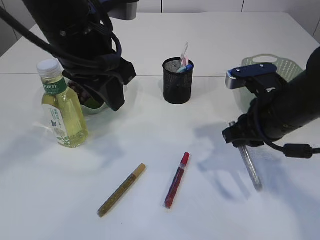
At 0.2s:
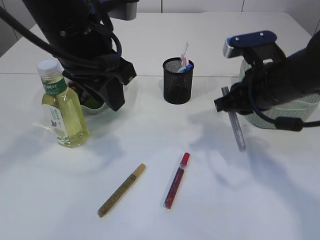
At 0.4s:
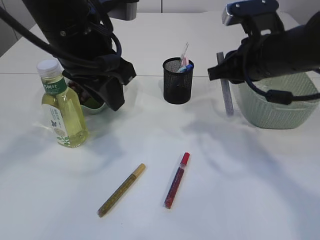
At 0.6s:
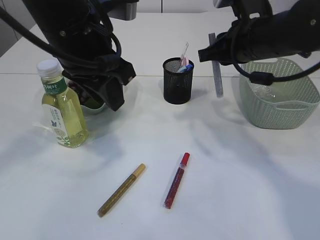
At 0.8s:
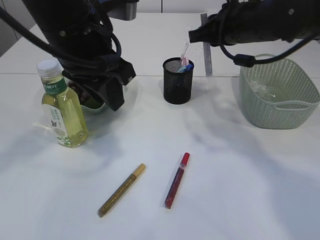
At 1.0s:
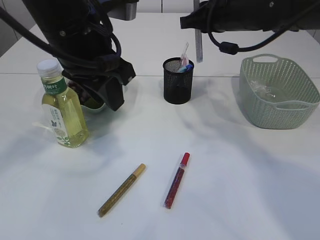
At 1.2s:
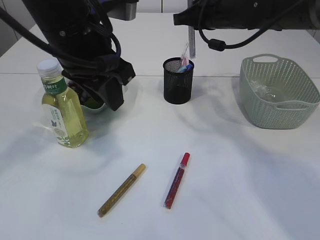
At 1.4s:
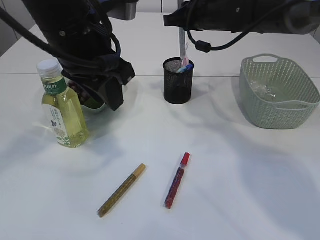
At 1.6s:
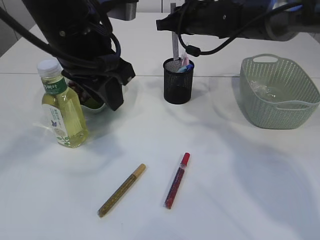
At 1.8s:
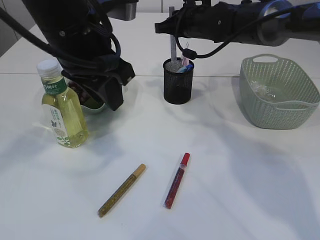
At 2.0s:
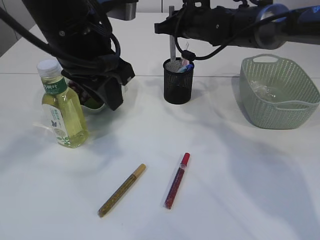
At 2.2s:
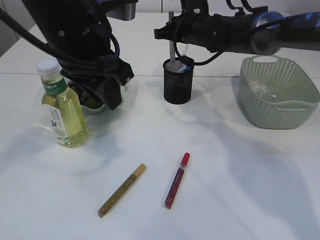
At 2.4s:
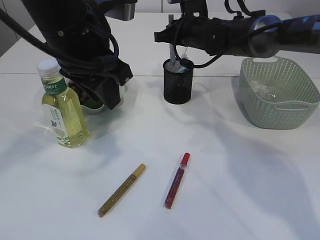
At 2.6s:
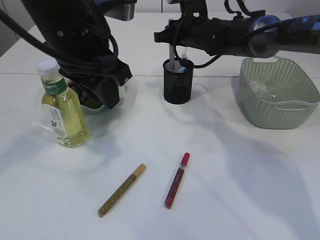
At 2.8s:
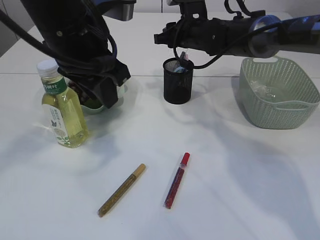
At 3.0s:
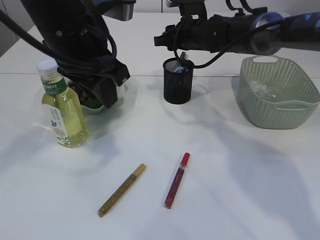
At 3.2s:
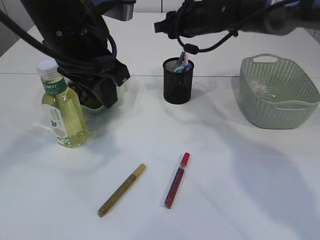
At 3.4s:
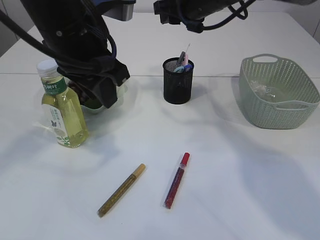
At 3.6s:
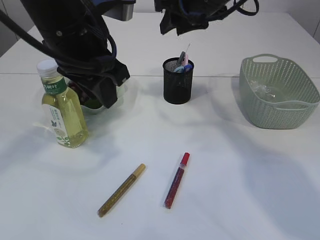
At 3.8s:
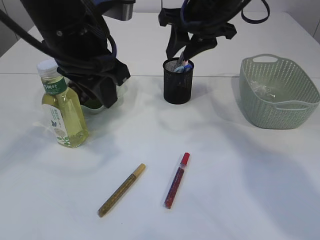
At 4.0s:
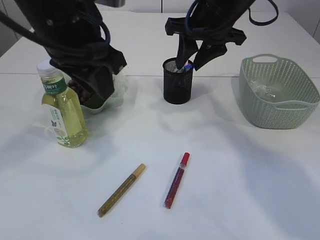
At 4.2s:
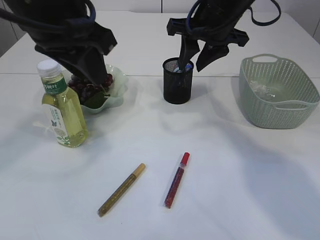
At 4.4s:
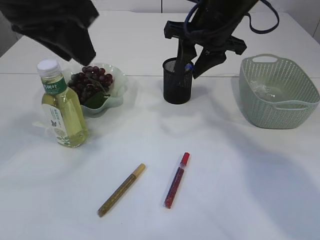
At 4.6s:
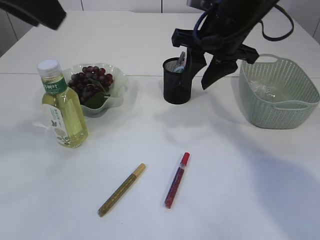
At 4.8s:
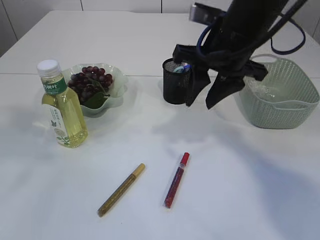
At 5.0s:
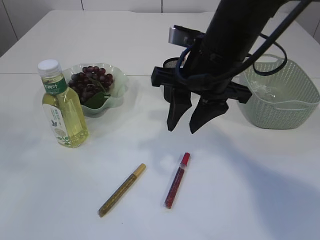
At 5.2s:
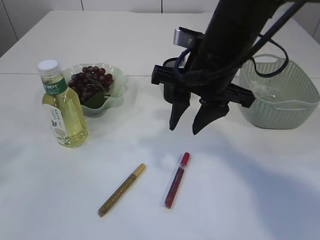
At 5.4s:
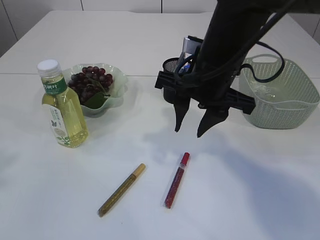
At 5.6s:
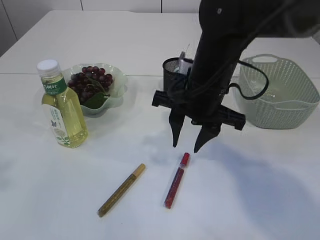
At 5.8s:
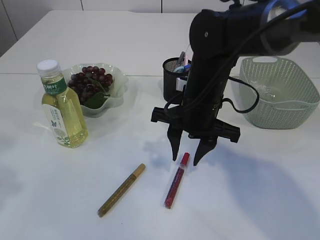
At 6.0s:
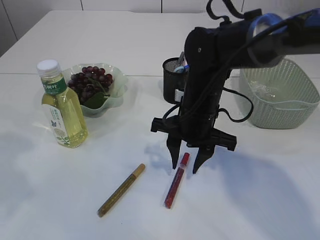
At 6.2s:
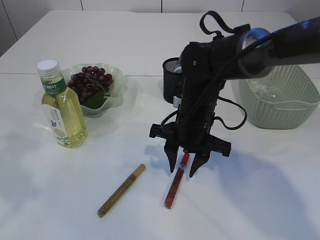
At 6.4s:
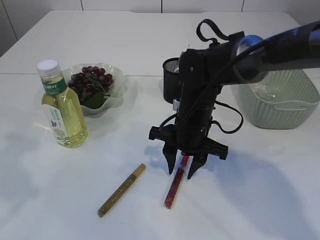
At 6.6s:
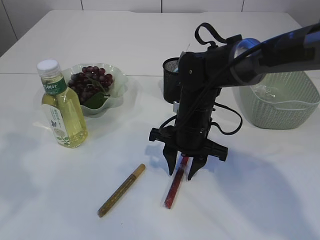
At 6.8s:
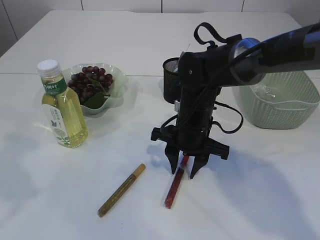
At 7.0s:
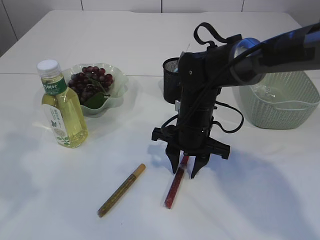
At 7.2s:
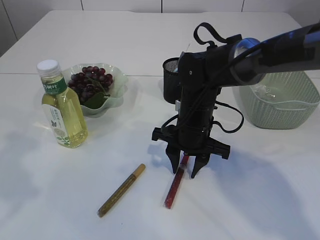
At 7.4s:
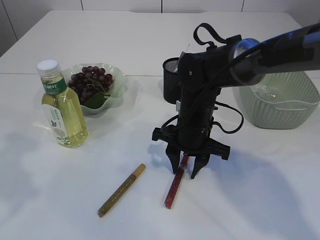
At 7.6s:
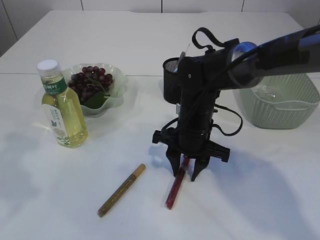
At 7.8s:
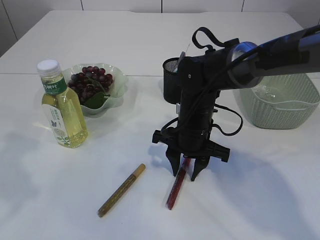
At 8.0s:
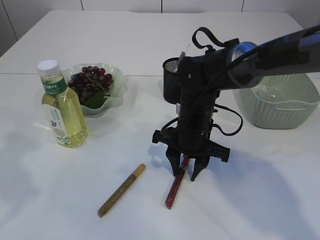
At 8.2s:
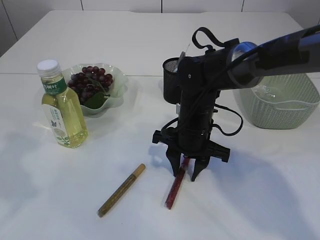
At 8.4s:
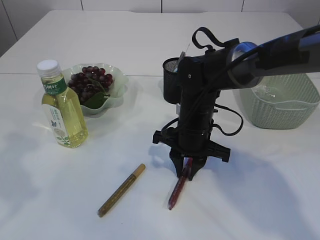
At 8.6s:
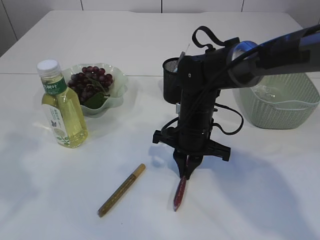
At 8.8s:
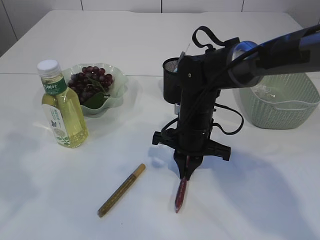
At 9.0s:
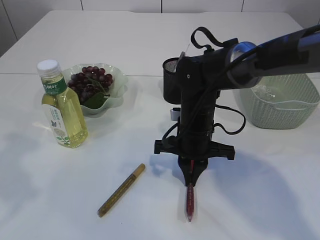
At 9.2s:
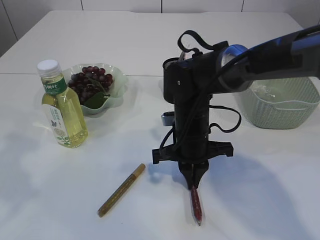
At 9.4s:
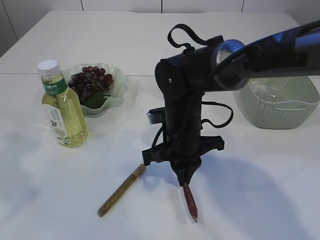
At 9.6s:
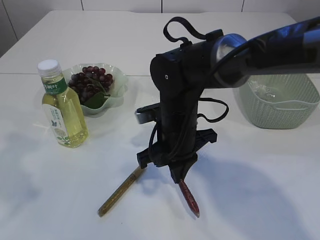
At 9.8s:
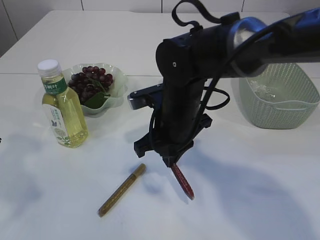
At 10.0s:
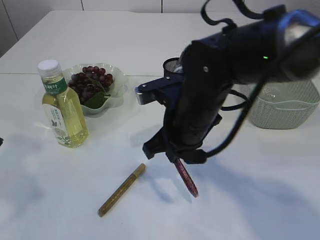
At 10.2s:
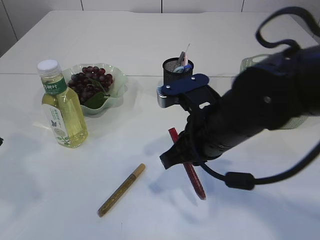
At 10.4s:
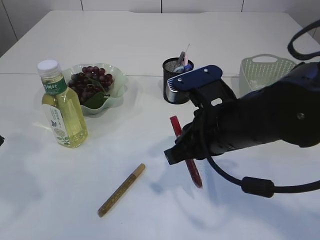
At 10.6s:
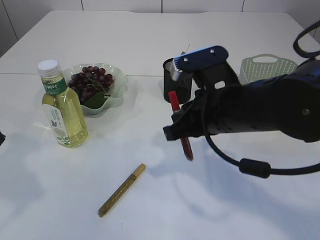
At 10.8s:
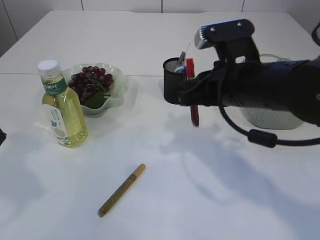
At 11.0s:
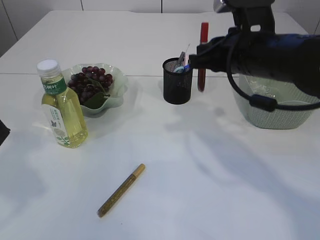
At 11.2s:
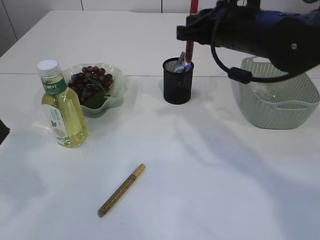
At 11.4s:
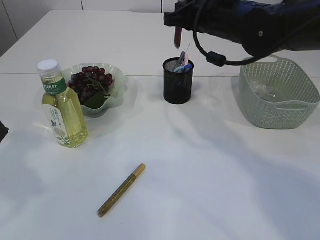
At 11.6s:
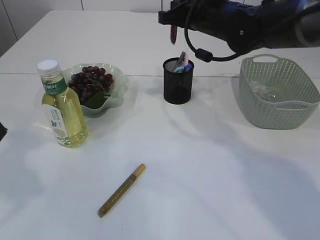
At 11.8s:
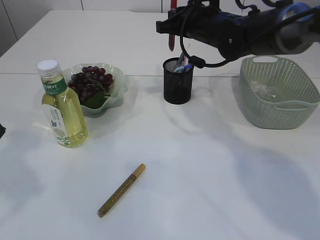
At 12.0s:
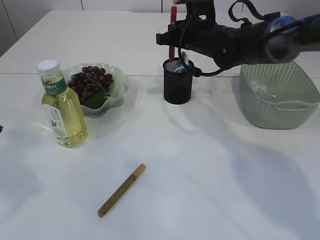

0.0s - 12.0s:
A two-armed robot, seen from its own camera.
Step, 0.0s - 2.6s: place the silver glue into the pen holder.
Step, 2.8s - 9.8s: pick up the red glue.
0.0s - 1.6s: The right gripper travels forward by approximately 20 cm.
1.6s - 3.0s: The right gripper opens.
3.0s - 4.4s: The left gripper goes roughly 5 cm upward. The right gripper heads backward and upward, covering some 15 cm.
4.4s - 6.0s: The left gripper moves to the left and backward, some 15 cm, and travels upward and back again, some 10 cm each way; the right gripper travels downward and backward by about 15 cm.
6.0s - 7.6s: The right gripper is displaced downward by about 5 cm.
7.6s - 9.0s: The right gripper closes.
9.0s - 10.4s: The right gripper shifts approximately 15 cm backward and upward.
10.4s - 12.0s: The right gripper moves forward, about 25 cm.

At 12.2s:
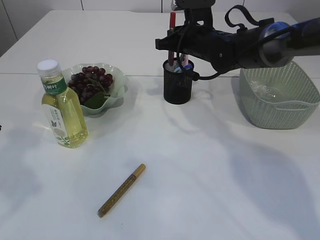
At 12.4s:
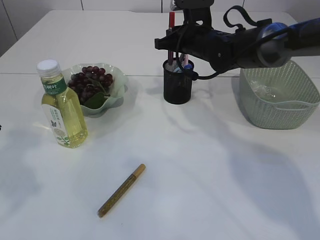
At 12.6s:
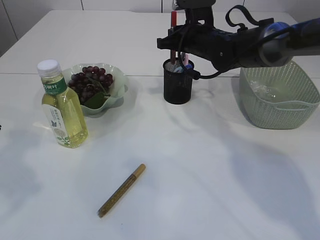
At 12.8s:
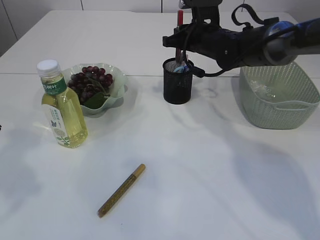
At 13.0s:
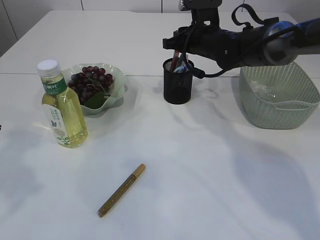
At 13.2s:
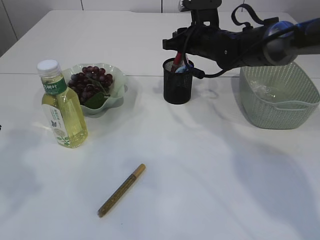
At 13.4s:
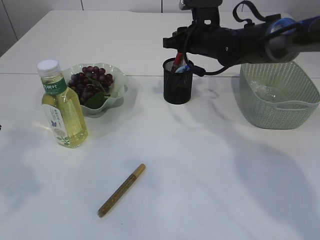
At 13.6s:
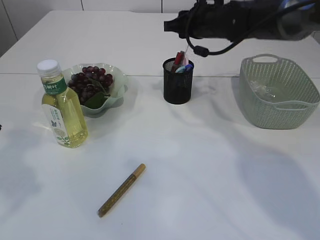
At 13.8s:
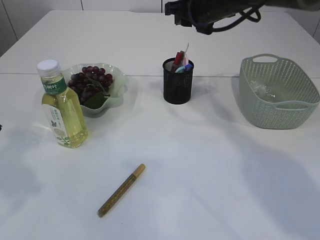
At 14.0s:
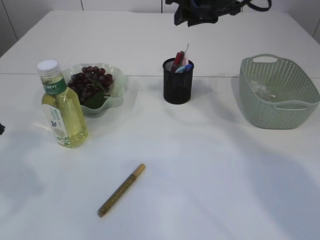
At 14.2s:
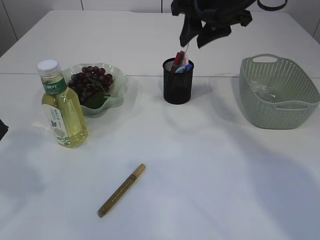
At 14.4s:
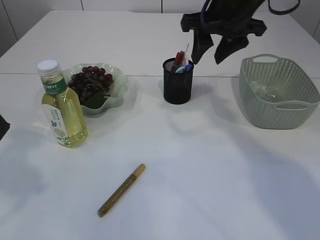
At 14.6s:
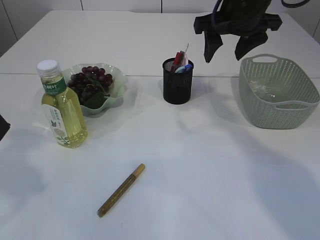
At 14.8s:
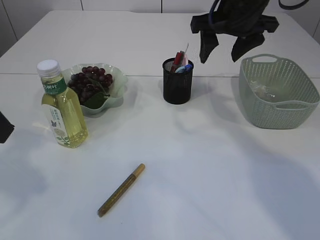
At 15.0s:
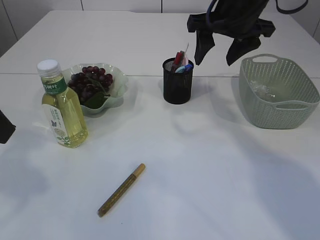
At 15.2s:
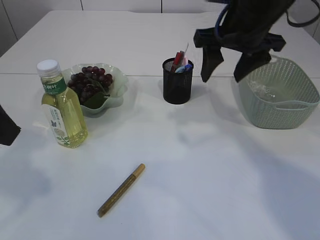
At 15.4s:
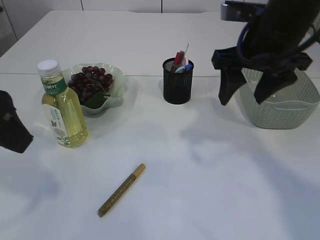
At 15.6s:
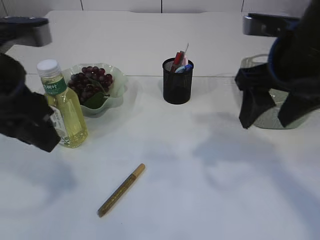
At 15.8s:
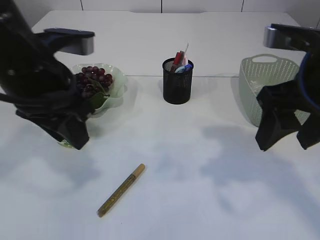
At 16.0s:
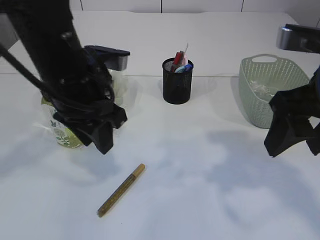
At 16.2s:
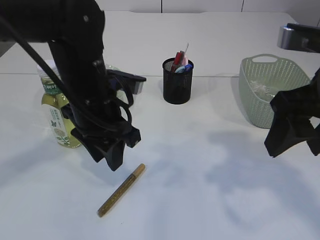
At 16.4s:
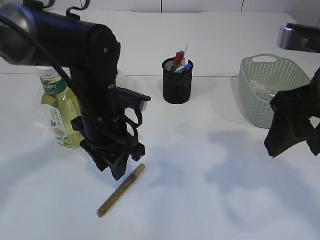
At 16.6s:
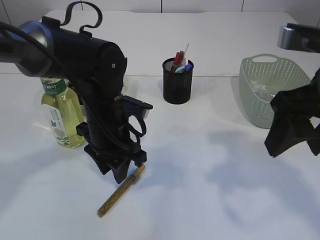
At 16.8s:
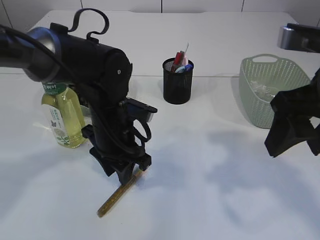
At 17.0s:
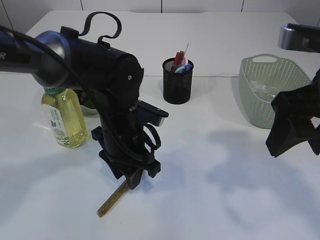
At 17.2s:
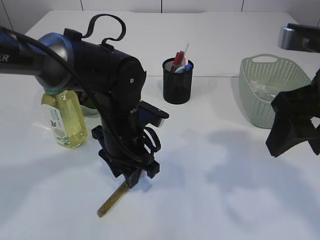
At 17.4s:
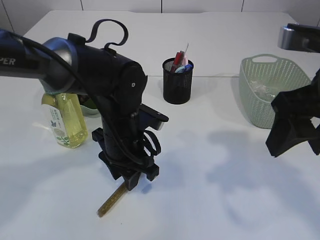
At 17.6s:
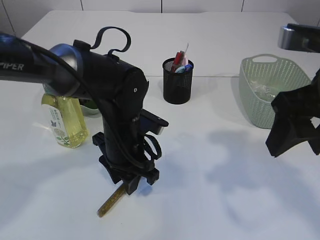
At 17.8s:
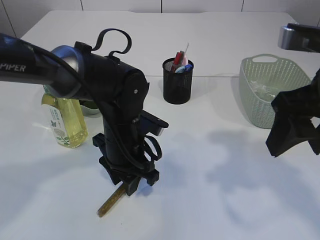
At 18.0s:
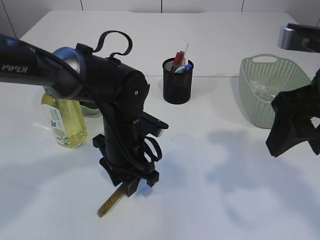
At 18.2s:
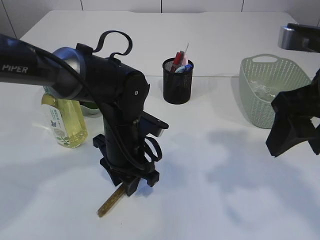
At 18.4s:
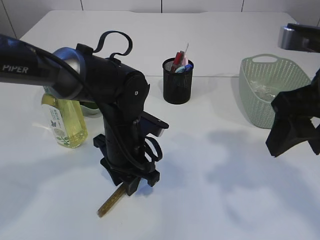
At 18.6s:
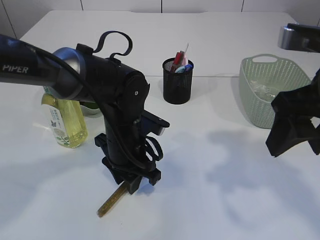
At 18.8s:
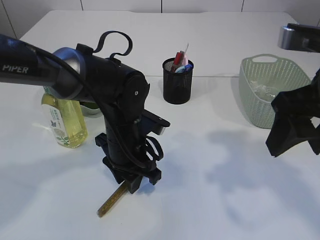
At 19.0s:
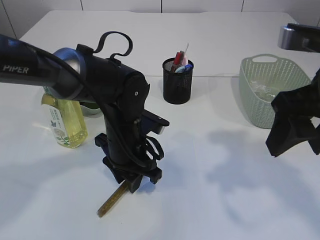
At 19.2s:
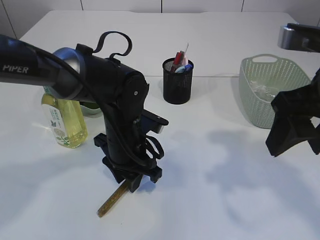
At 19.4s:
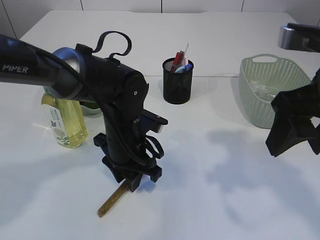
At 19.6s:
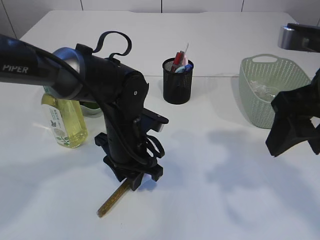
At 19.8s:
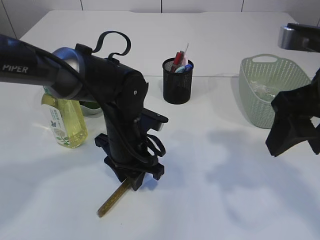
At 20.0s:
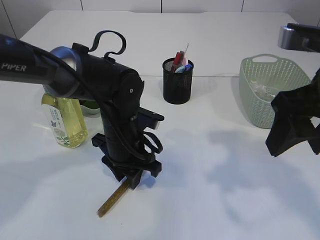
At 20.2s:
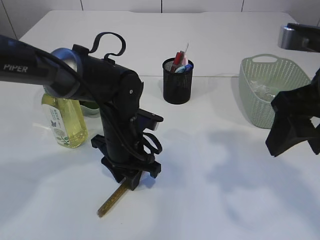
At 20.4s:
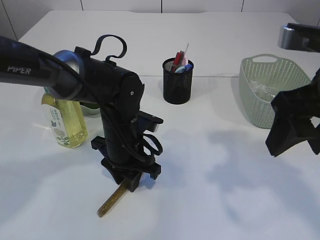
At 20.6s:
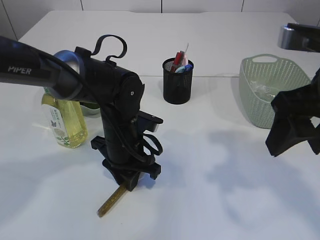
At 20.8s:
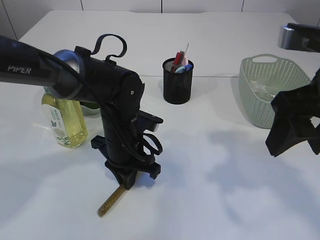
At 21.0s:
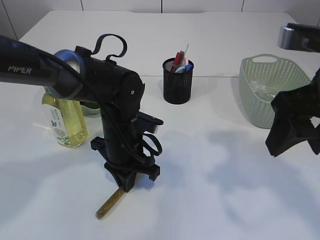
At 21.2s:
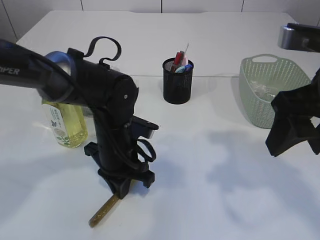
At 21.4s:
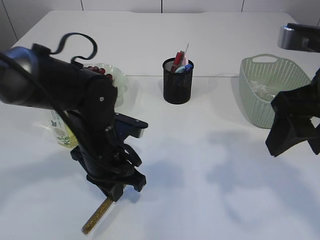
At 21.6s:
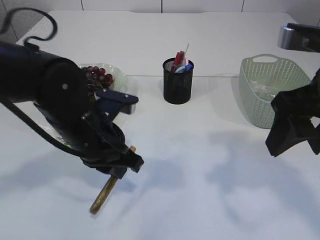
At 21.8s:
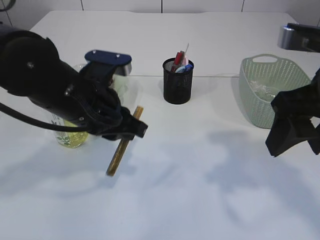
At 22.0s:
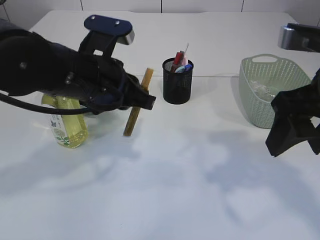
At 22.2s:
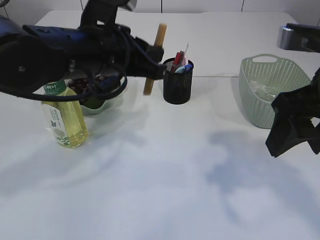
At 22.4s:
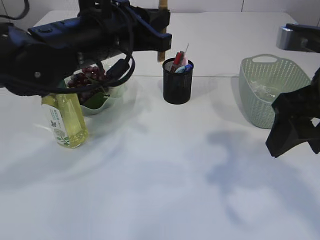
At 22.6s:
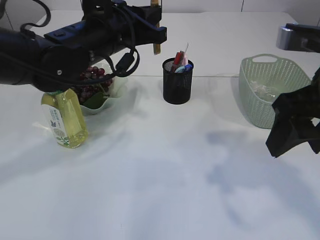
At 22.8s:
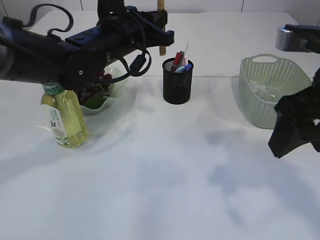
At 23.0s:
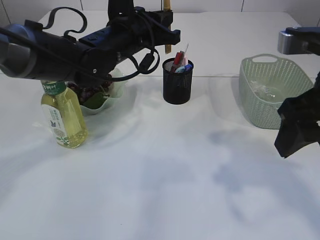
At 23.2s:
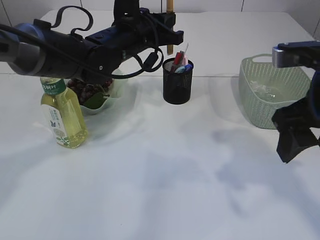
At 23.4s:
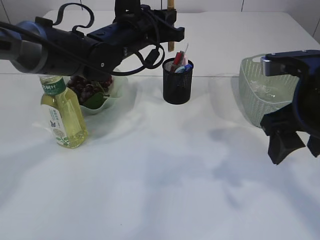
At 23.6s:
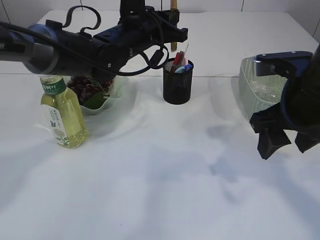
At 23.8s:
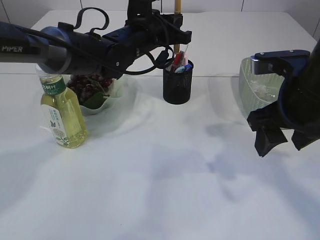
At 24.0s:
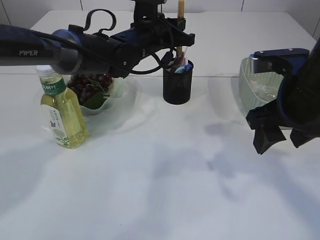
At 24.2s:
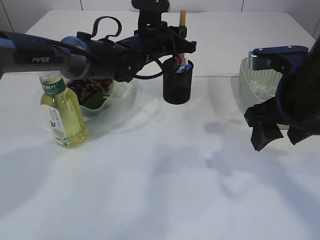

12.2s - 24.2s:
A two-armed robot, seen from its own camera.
Step, 13.6s - 21.8s: pick up the yellow glue.
12.2s - 13.8s: The right gripper shifts roughly 10 cm upward, and opens up.
13.8s - 15.2s: The right gripper is displaced backward by approximately 10 cm, and opens its fingers.
15.2s - 16.6s: The left gripper shifts roughly 25 cm downward, to the right and forward. Meanwhile the right gripper moves backward, roughly 15 cm.
16.6s - 19.8s: The grippers stay close to where they were, moving slightly.
19.8s - 21.2s: The left gripper closes.
21.2s - 22.6s: The left gripper goes roughly 15 cm upward.
22.6s - 24.2s: The left gripper travels forward, downward and to the right by roughly 15 cm. The right gripper is displaced forward and downward by about 10 cm.
